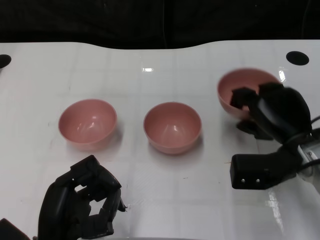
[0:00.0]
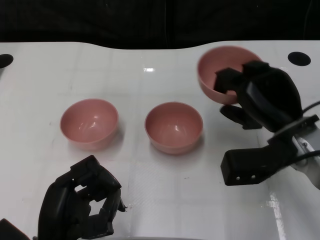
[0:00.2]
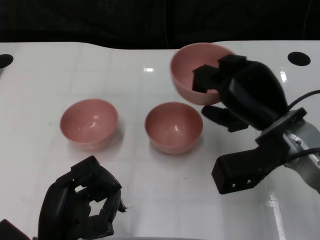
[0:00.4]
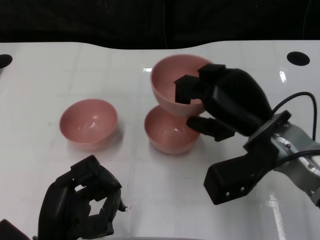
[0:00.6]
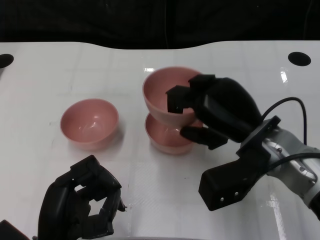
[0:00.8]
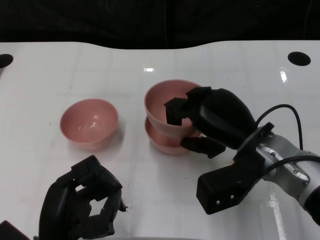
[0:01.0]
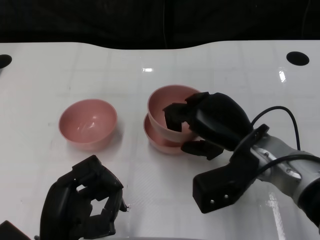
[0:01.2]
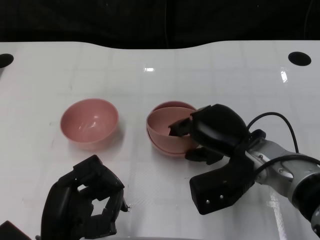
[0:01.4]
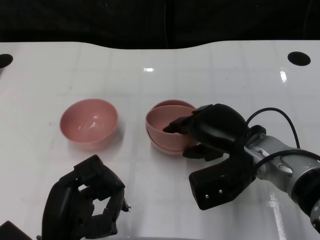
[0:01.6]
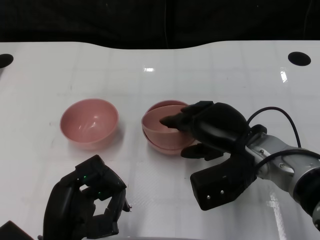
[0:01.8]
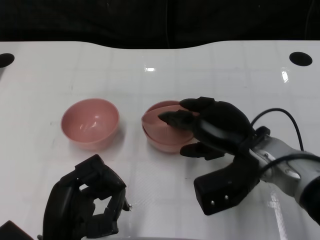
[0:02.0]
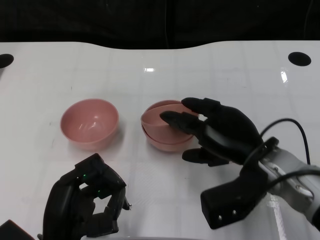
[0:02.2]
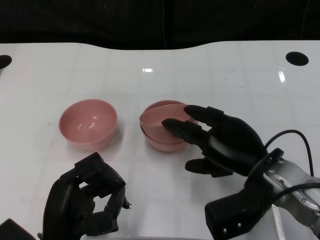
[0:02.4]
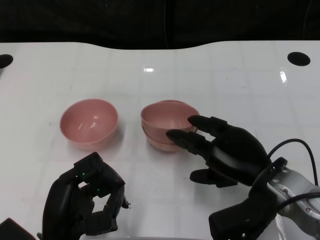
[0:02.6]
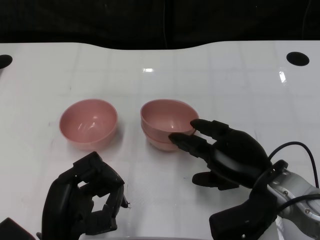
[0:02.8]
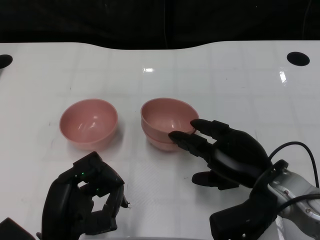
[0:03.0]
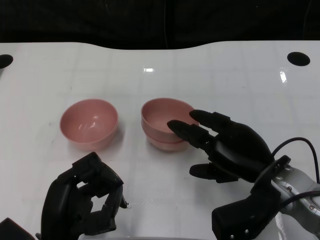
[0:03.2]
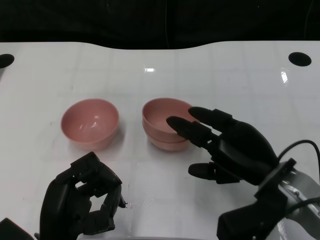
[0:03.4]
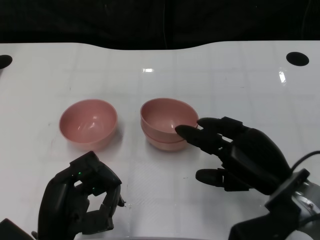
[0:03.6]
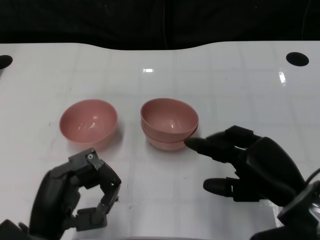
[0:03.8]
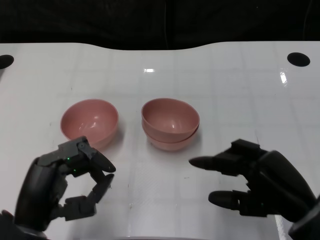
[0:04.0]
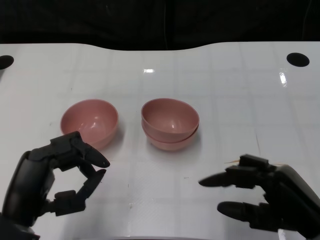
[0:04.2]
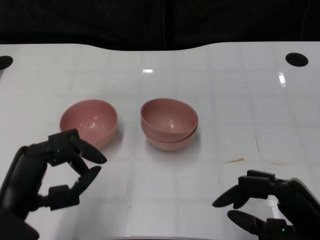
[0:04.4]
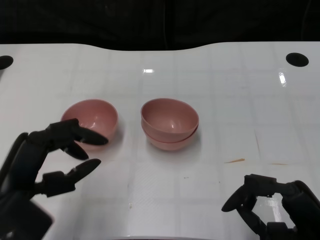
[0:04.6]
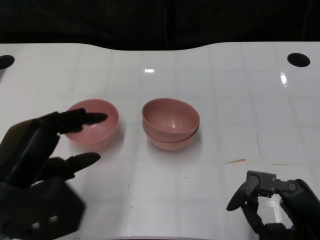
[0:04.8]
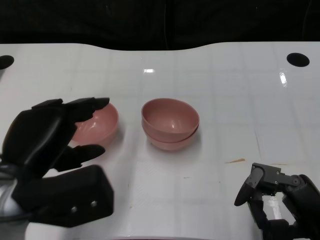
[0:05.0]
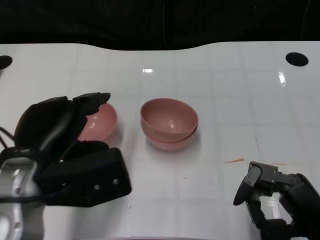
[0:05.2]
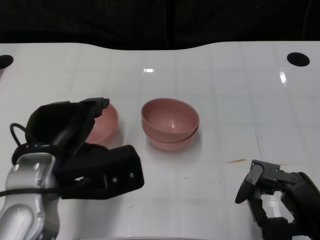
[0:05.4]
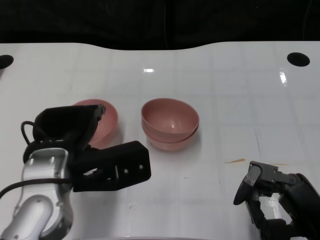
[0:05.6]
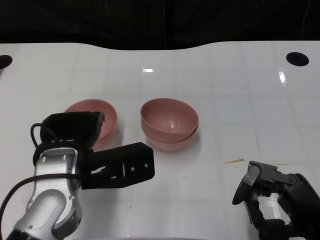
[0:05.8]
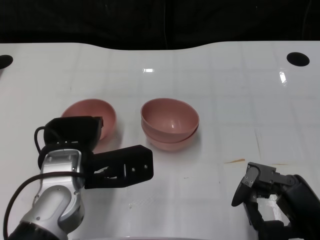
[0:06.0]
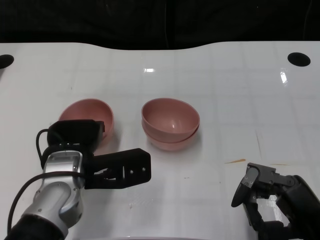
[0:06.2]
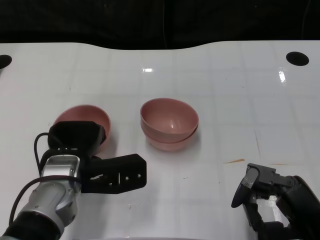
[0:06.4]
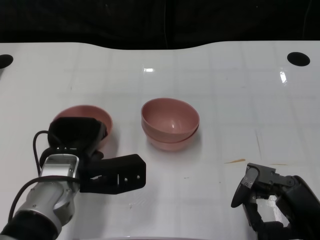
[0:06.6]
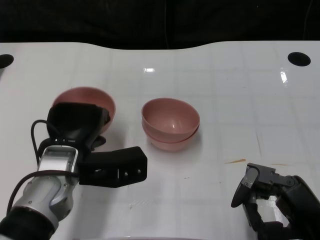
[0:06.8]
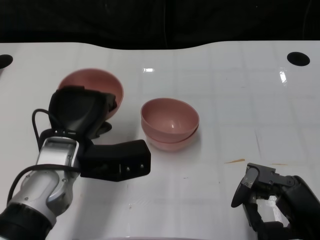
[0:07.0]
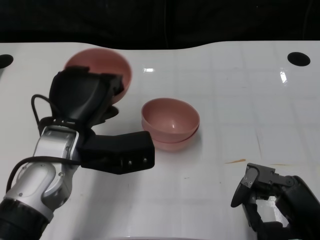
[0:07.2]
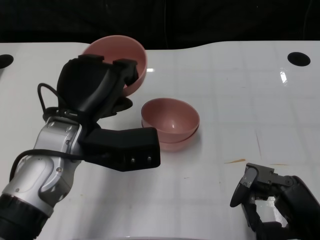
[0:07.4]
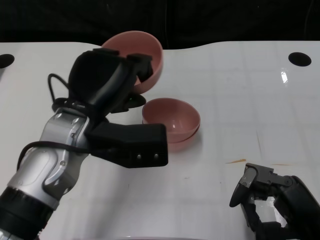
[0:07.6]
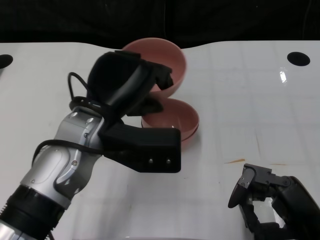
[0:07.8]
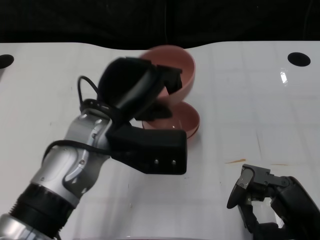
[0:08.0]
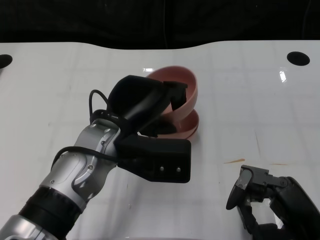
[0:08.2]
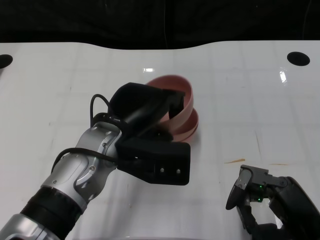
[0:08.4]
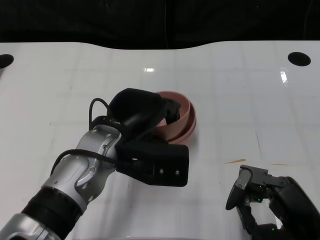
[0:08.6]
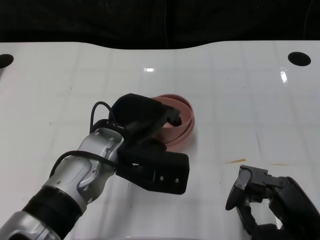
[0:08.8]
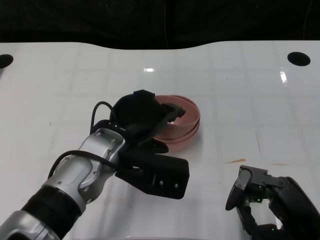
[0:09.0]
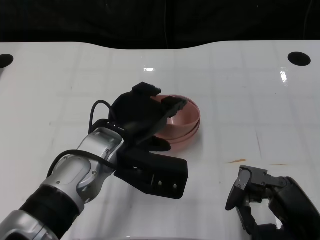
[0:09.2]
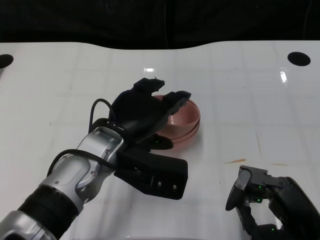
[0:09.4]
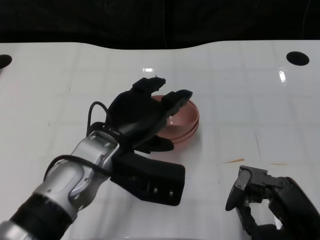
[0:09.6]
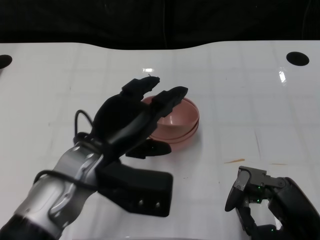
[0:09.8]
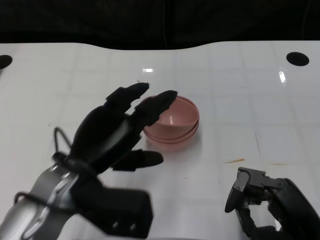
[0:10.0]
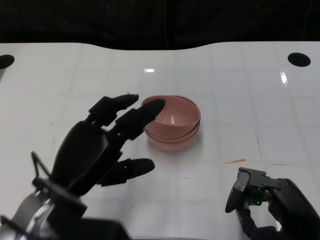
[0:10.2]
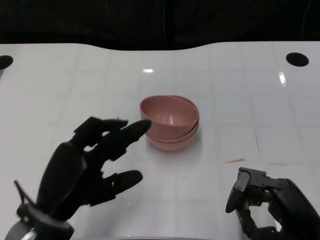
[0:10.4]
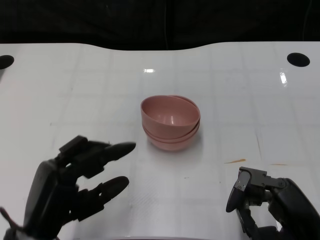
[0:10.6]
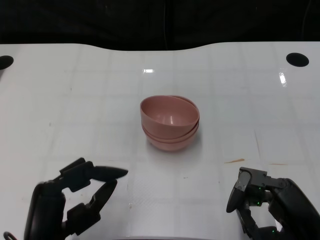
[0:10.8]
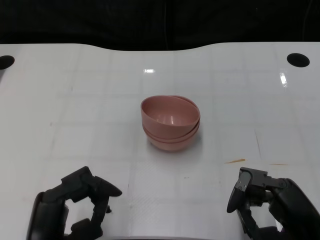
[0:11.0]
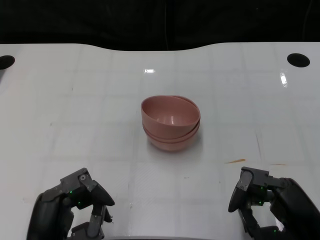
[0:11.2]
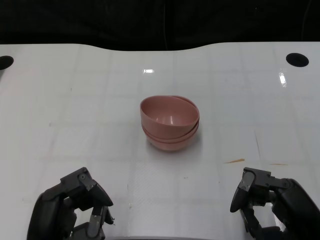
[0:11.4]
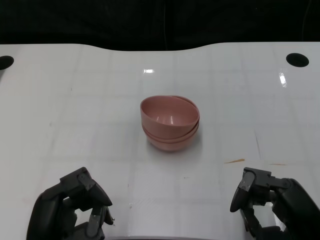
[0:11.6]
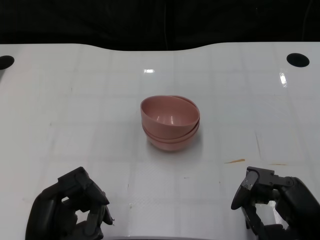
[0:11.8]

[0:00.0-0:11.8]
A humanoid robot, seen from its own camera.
Task of the whole recording: Pick up the bowl on one side of the table and place it on top of the middle bowl, then pick up the bowl on the other side of the table and place it on top of the middle bowls.
Step, 0:00.0 to 0:03.6: Place the bowl on the right onto the bowl in the middle with right gripper.
Step, 0:03.8 to 0:06.6: Grasp the bowl on the left with the left gripper.
Step, 0:06.8 to 0:09.8: Place the bowl on the left onto the bowl in the middle with left gripper.
0:00.0 to 0:01.4: The right hand travels to the left by about 5 cm.
0:01.4 to 0:03.0: The right hand shifts by approximately 5 cm.
0:03.0 to 0:04.4: The right hand is displaced backward and to the right by roughly 10 cm. The left hand shifts approximately 5 cm upward.
0:04.4 to 0:06.0: The left hand travels forward and to the right by approximately 10 cm.
0:07.4 to 0:08.8: The left hand shifts by approximately 5 cm.
0:08.8 to 0:10.4: The left hand goes roughly 15 cm backward and to the left.
0:10.4 to 0:11.8: The left hand moves backward, about 5 cm.
